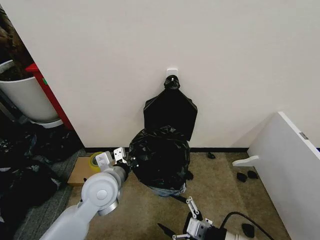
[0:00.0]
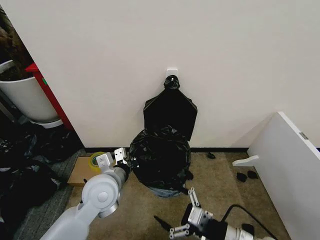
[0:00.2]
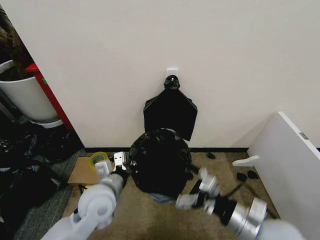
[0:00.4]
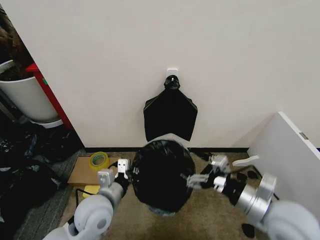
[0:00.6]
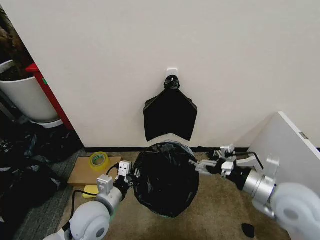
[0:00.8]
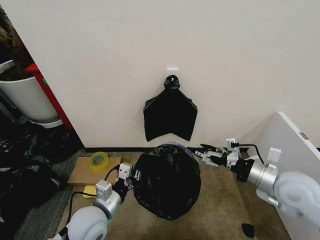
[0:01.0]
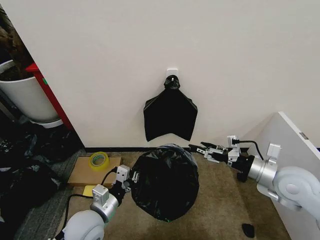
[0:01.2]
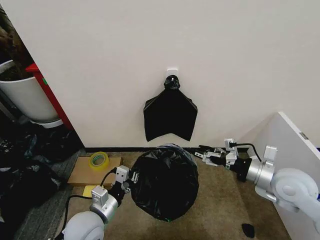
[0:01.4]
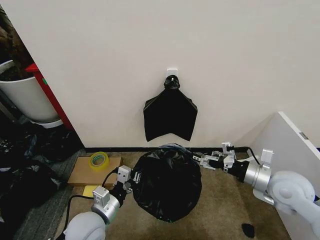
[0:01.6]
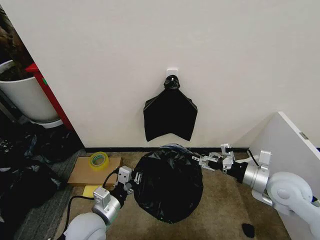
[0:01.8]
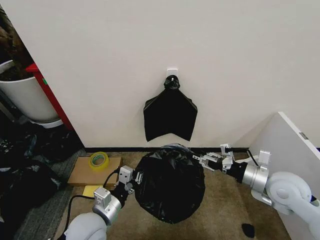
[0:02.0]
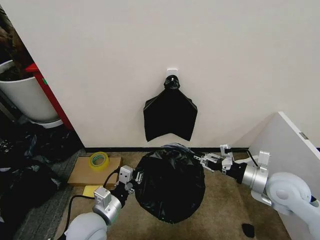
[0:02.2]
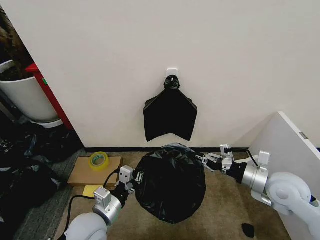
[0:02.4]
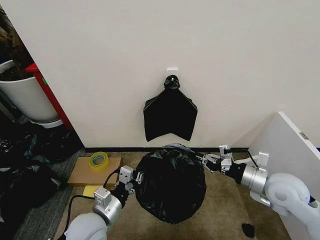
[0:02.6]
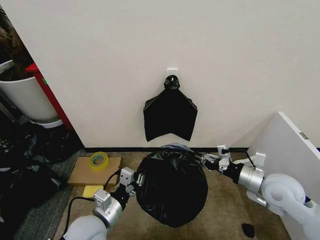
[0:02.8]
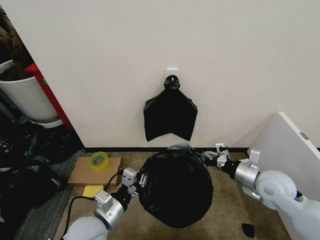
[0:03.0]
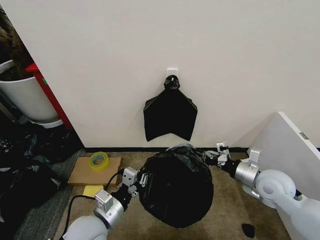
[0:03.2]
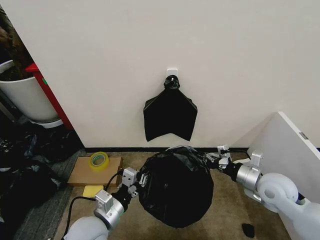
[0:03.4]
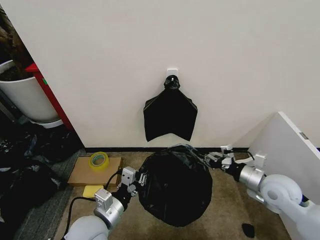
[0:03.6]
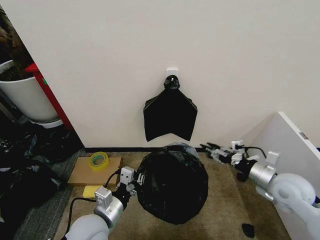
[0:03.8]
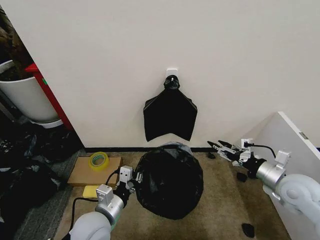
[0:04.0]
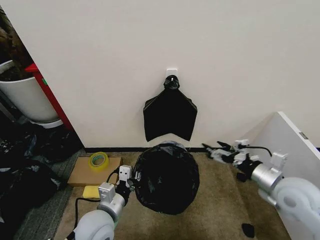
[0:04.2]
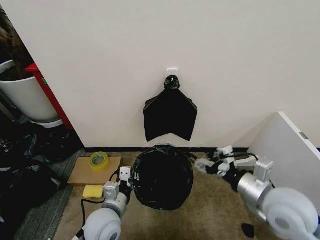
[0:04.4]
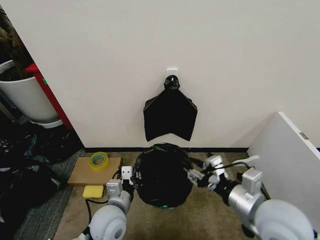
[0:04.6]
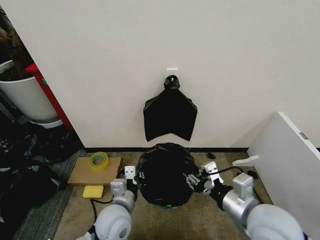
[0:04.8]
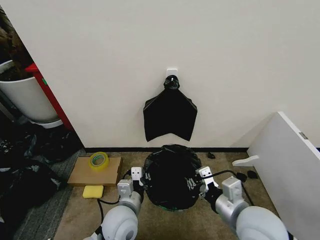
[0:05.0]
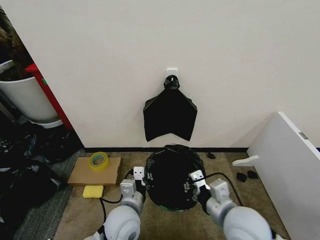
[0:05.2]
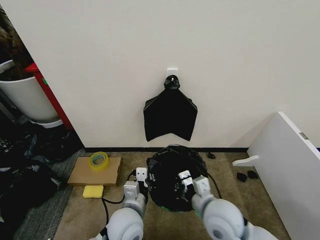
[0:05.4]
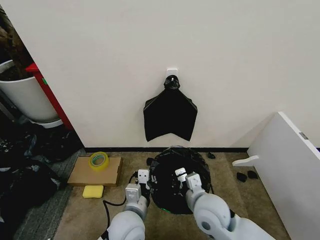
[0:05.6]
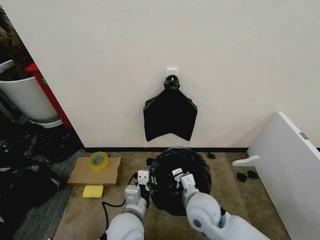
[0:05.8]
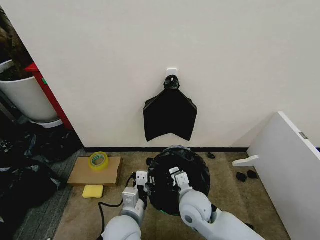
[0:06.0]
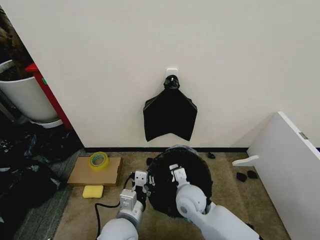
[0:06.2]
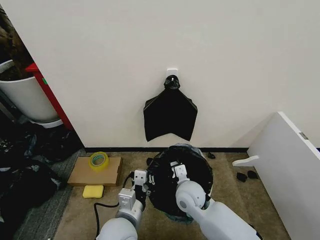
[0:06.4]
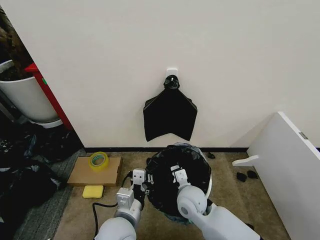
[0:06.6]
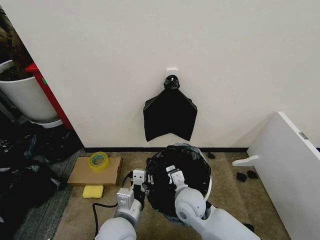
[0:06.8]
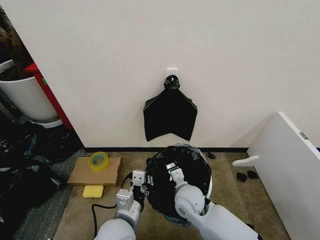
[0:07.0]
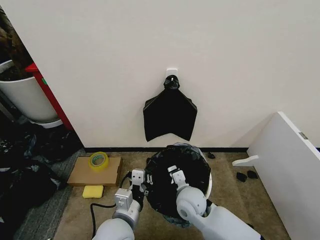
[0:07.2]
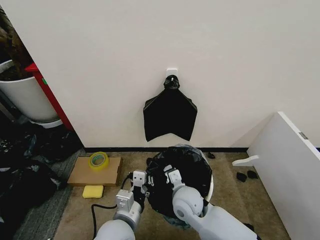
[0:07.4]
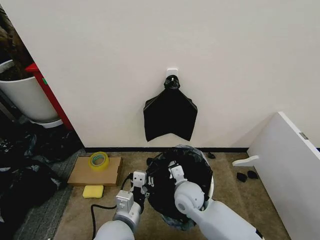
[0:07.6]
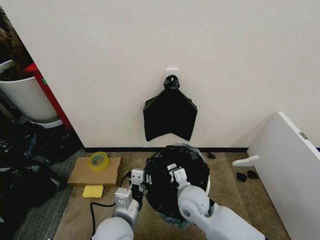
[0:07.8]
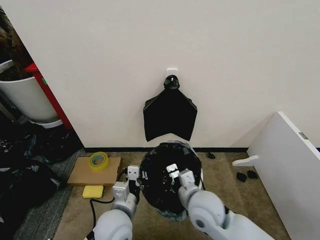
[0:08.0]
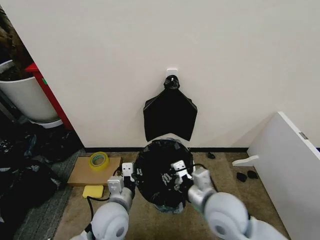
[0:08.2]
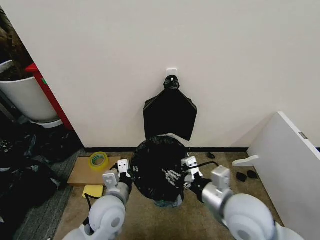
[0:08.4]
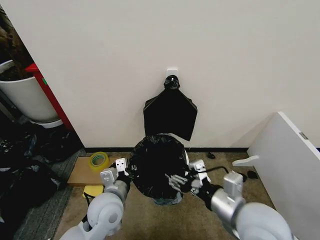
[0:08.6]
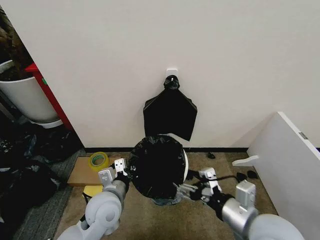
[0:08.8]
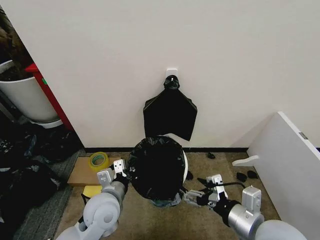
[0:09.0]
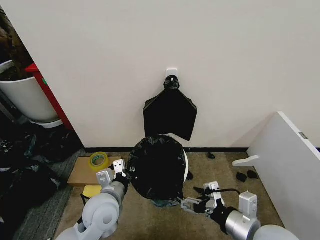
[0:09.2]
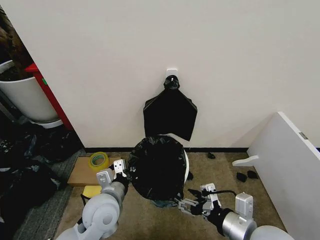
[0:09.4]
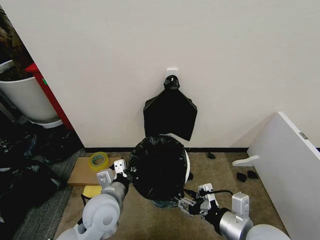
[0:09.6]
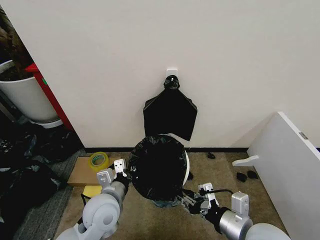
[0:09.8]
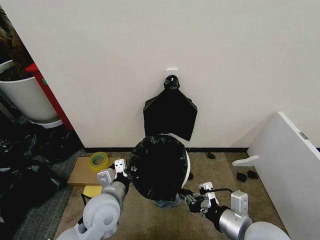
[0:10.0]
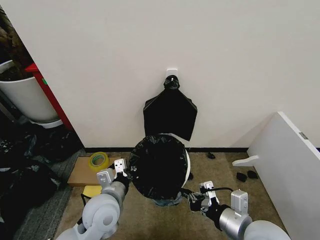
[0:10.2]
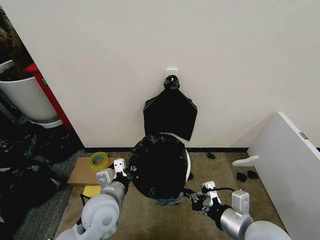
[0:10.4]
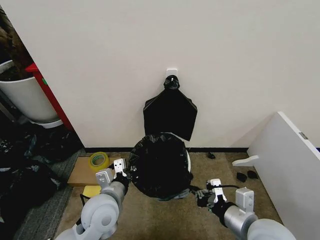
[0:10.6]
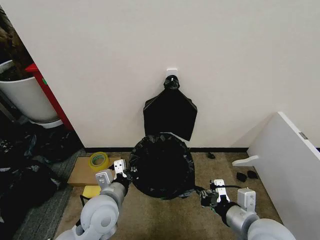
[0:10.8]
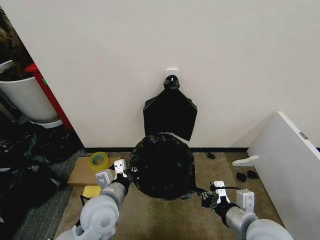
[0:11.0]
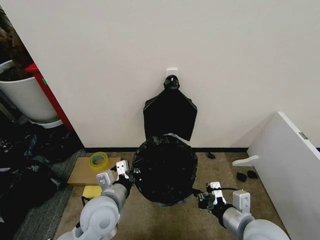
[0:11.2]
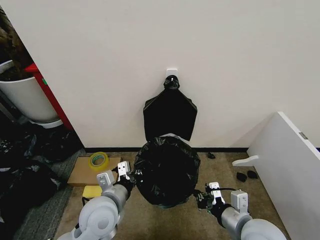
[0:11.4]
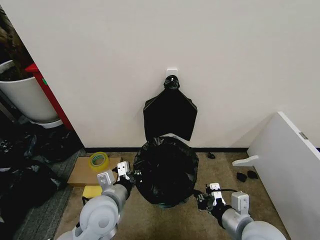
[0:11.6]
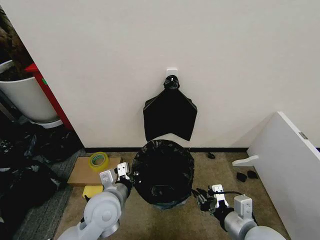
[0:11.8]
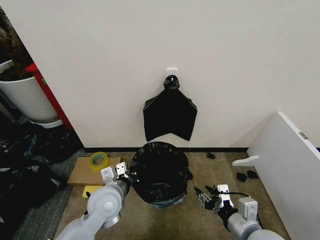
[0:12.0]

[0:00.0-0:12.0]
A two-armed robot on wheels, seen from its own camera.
Task of the whole recording: Place the garbage bag over the trash bin.
0:00.0 to 0:01.6: The right gripper shifts about 20 cm forward, to the right and upward; the left gripper travels backward and downward by approximately 10 cm.
0:01.6 to 0:03.0: The right gripper closes.
0:03.0 to 0:04.4: The right gripper is displaced backward and upward by about 10 cm, and opens.
0:04.4 to 0:06.0: The right gripper travels to the left and downward by about 20 cm, and closes its fingers. Meanwhile the left gripper heads to the right, covering about 5 cm.
0:06.0 to 0:07.6: The right gripper changes place by some 5 cm.
0:07.6 to 0:09.0: The left gripper goes roughly 5 cm forward; the right gripper travels to the right, backward and upward by approximately 25 cm, and opens up.
0:09.0 to 0:10.4: The right gripper closes its fingers.
0:10.4 to 0:12.0: The right gripper opens.

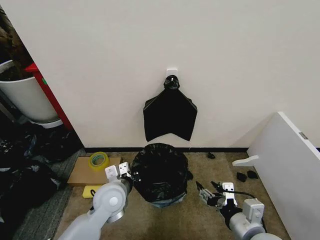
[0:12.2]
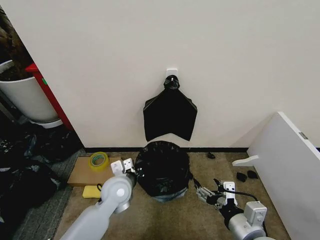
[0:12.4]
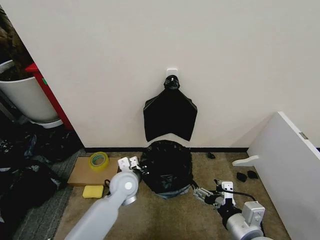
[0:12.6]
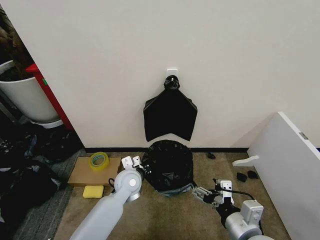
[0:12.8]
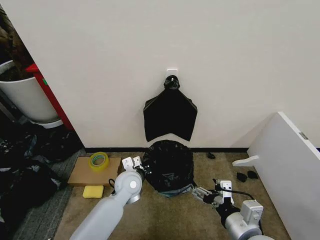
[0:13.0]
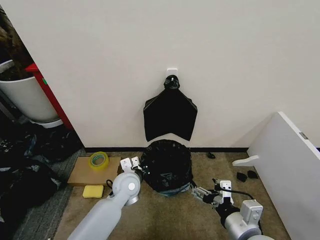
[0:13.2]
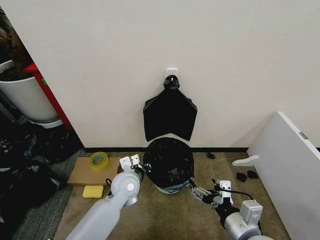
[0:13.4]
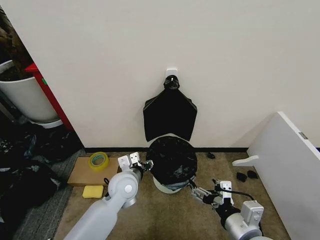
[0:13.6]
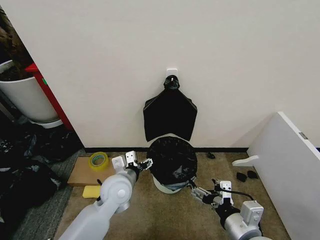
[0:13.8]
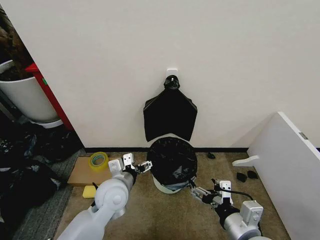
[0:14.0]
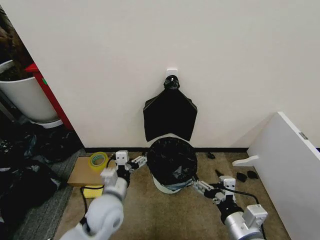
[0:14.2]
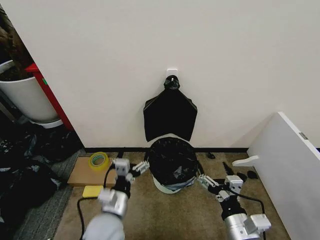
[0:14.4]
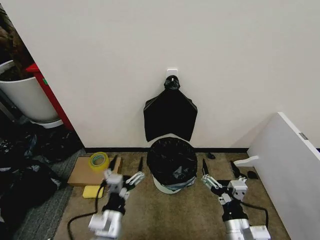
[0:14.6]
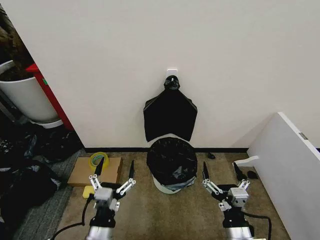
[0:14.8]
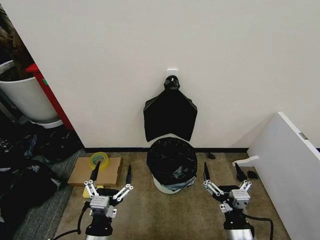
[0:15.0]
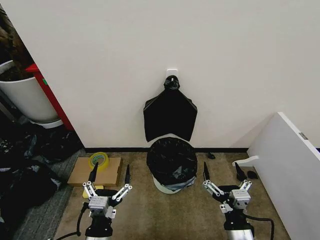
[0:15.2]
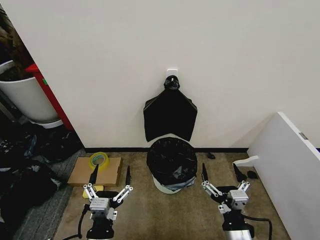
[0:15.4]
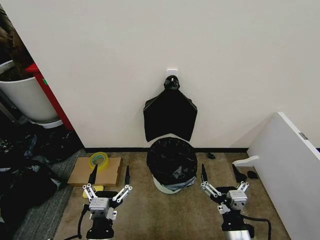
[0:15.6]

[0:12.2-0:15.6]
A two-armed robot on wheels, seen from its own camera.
Task of the whole recording: Place the garbage bag over the trash bin.
0:12.2 to 0:13.8: The left gripper opens, while the right gripper opens up.
0:13.8 to 0:15.6: The right gripper goes roughly 5 cm downward, while the left gripper heads backward, covering approximately 20 cm.

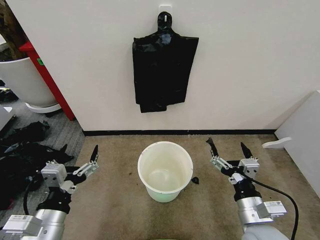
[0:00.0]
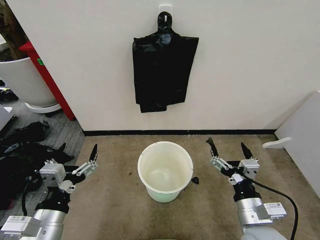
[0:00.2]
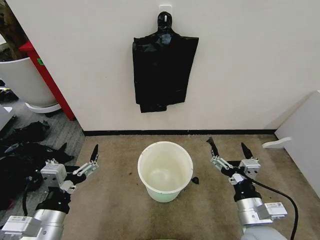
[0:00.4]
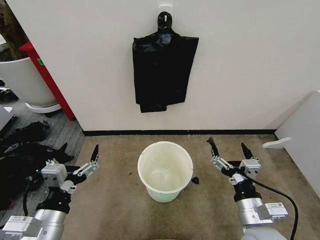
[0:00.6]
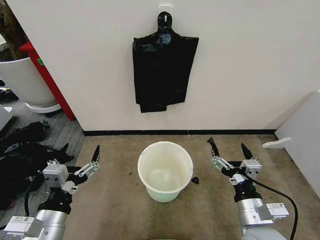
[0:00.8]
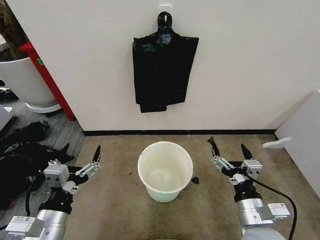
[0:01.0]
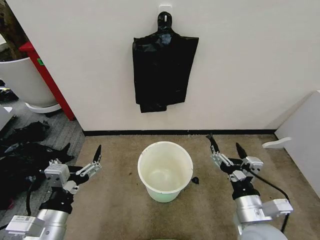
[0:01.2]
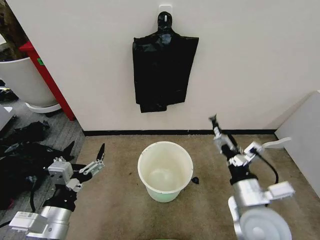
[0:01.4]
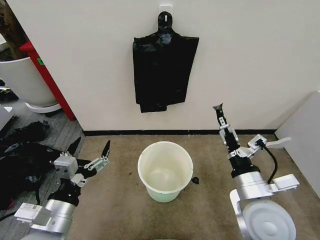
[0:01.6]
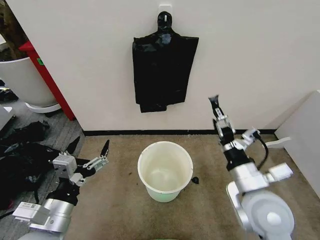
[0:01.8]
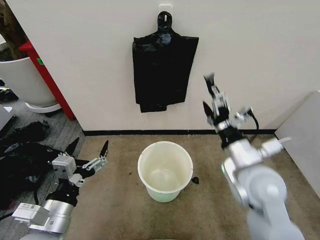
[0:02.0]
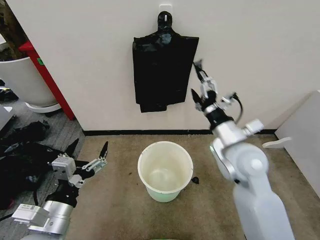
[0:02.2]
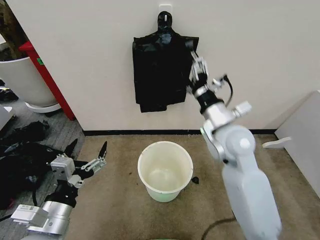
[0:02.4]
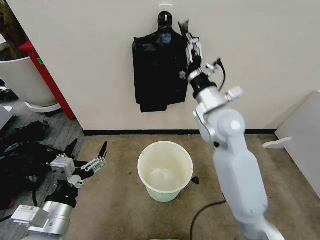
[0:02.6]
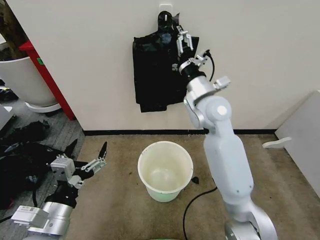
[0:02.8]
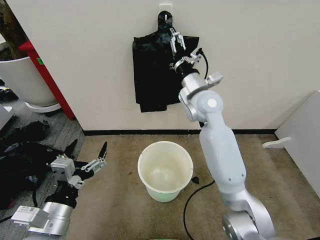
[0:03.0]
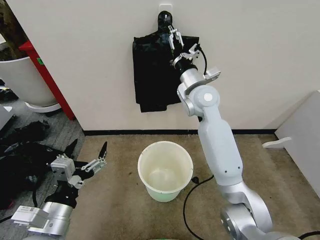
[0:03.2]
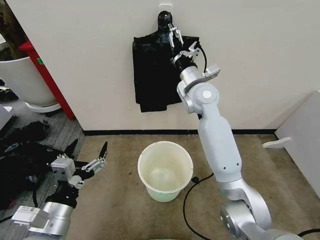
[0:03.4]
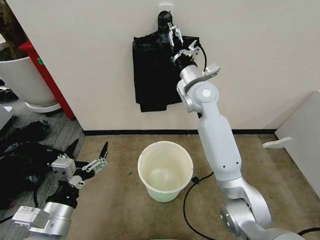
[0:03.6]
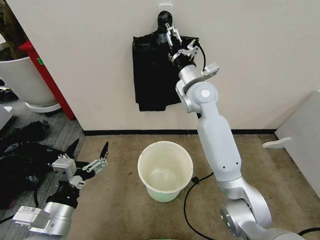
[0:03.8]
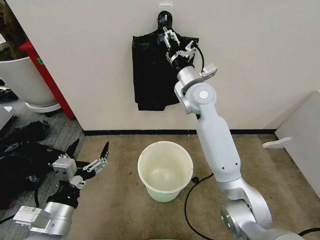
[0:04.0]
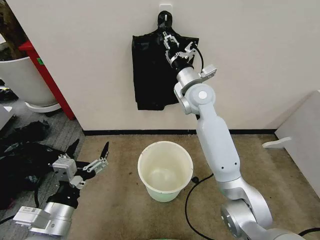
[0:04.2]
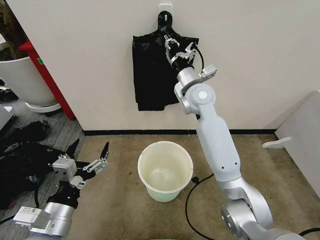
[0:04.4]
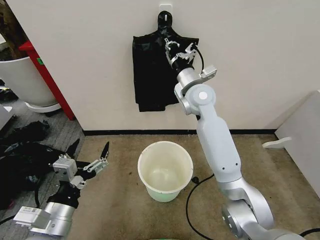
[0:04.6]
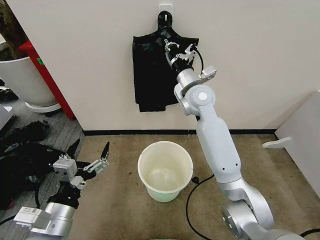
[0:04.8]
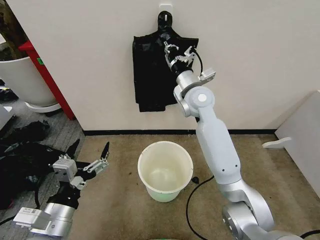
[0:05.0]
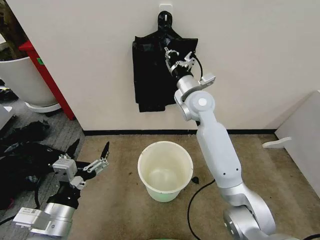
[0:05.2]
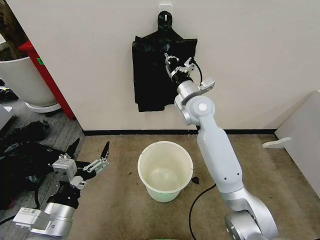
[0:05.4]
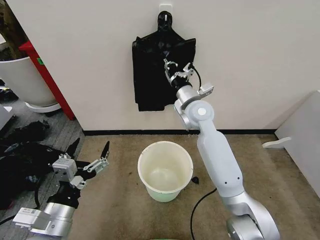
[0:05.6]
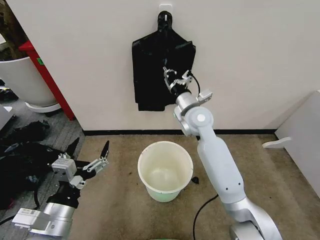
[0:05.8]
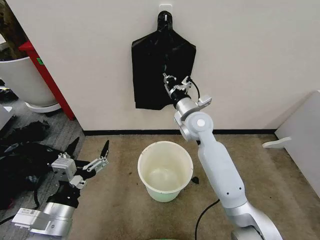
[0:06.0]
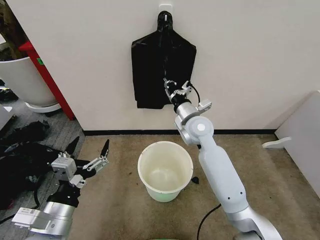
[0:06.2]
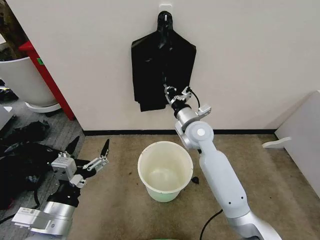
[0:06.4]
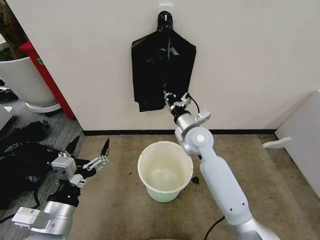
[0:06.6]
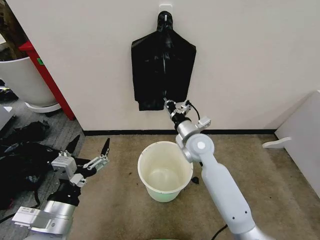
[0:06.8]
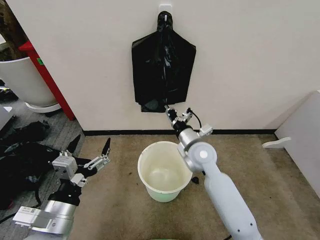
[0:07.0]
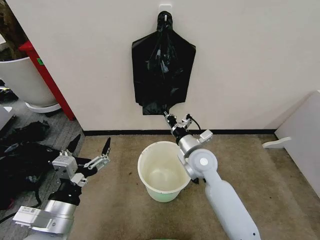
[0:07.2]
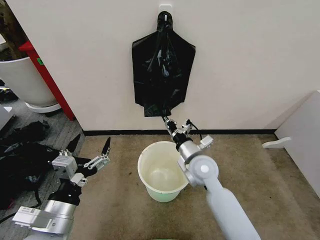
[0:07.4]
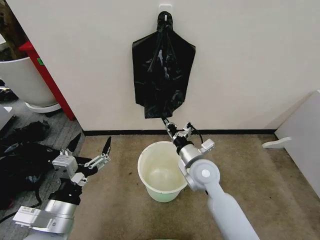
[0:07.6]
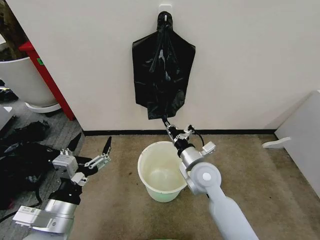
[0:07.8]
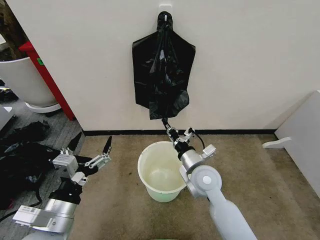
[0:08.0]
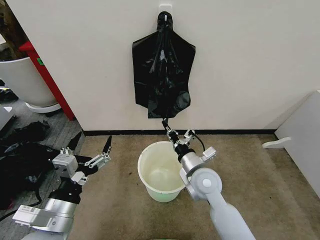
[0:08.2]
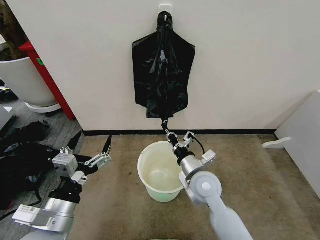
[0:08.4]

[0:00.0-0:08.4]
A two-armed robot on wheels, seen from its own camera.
Task of the whole recording: Place the garbage bag over the trash bin.
0:01.4 to 0:02.8: The right gripper shifts approximately 30 cm forward and upward.
0:02.8 to 0:04.2: The right gripper shifts roughly 5 cm forward, and closes.
0:04.2 to 0:05.6: The right gripper changes place by roughly 5 cm, and closes.
0:05.6 to 0:07.0: The right gripper heads downward and backward, covering about 15 cm.
0:07.0 to 0:08.4: The right gripper heads backward, covering about 10 cm.
